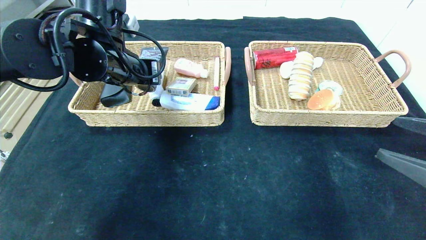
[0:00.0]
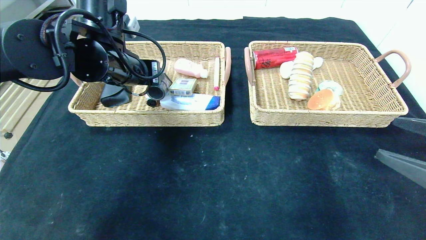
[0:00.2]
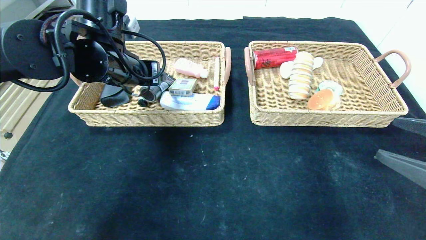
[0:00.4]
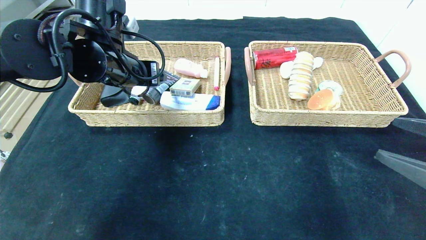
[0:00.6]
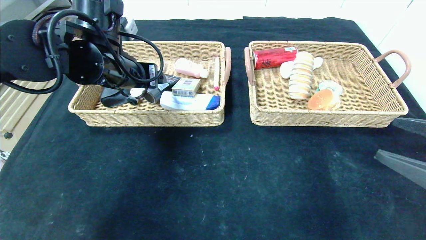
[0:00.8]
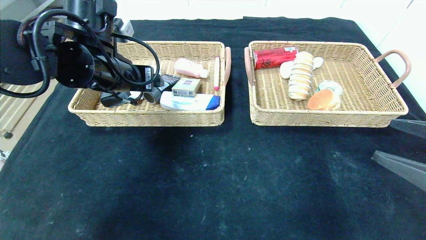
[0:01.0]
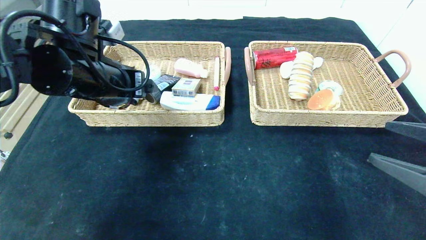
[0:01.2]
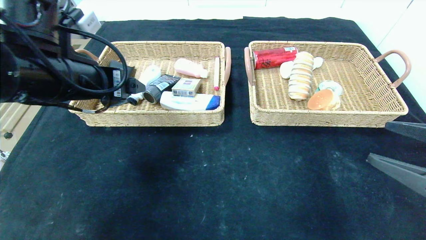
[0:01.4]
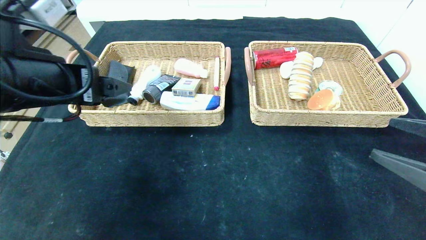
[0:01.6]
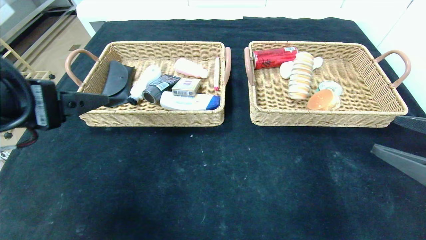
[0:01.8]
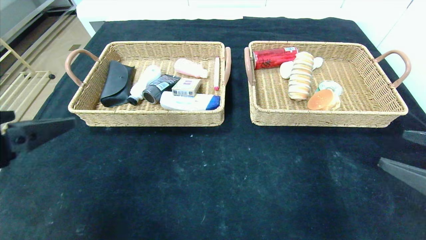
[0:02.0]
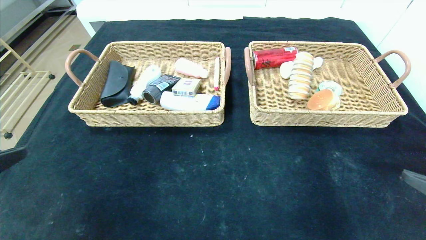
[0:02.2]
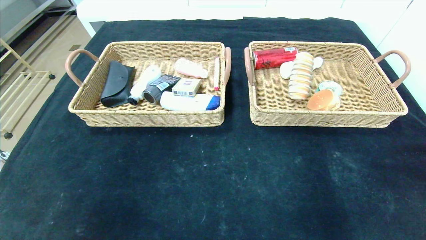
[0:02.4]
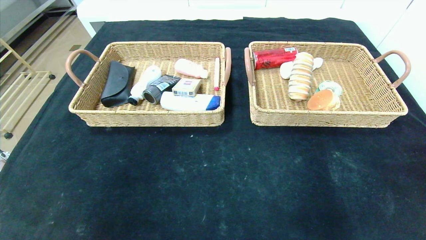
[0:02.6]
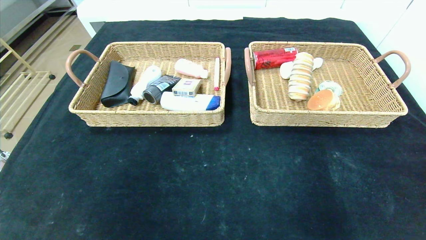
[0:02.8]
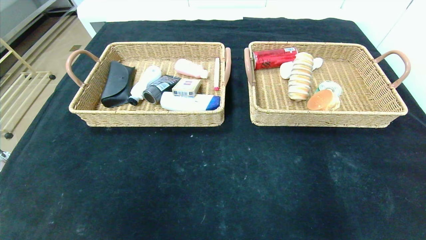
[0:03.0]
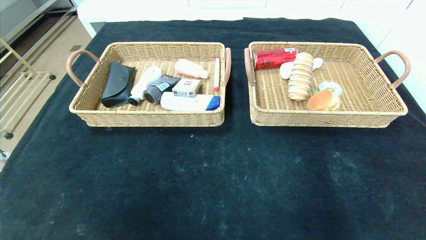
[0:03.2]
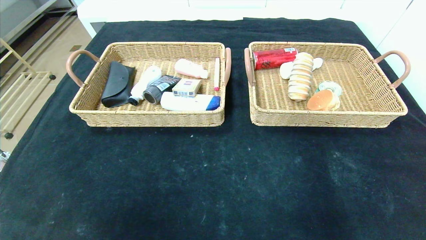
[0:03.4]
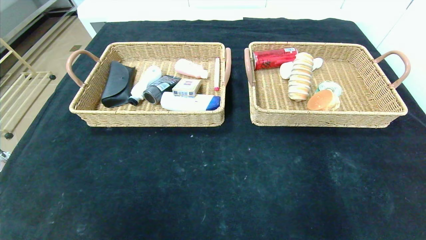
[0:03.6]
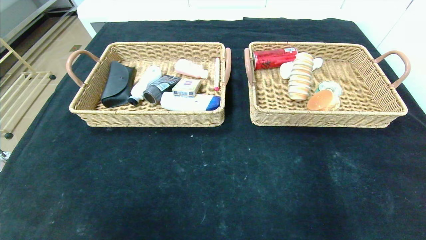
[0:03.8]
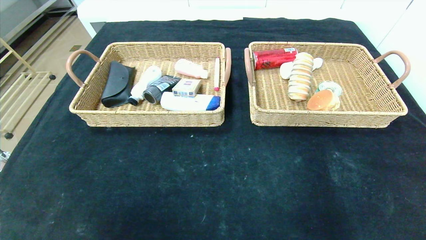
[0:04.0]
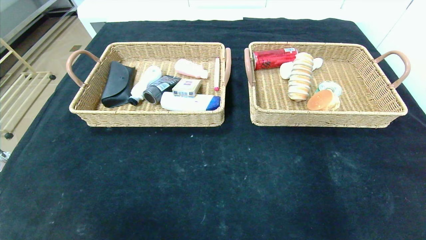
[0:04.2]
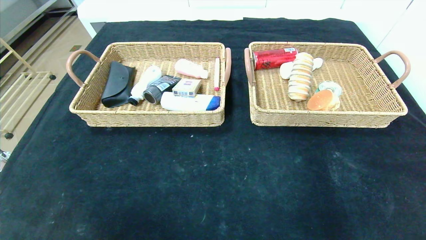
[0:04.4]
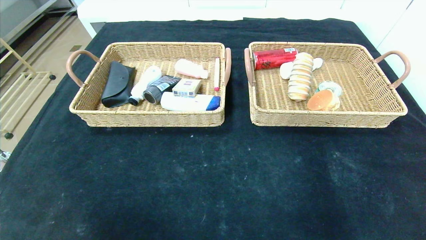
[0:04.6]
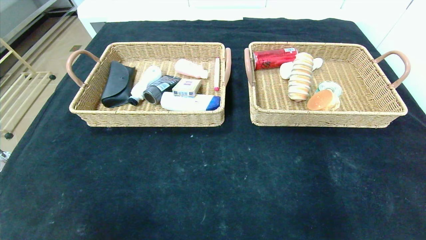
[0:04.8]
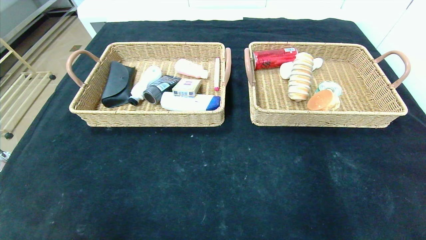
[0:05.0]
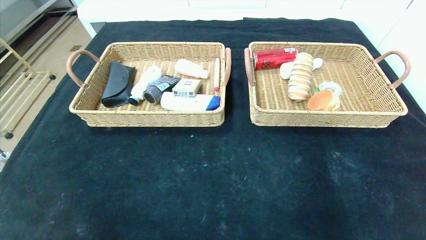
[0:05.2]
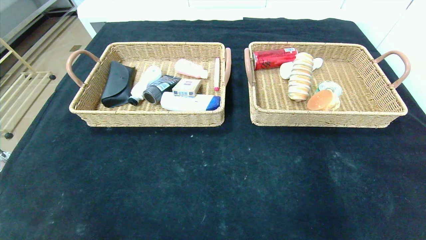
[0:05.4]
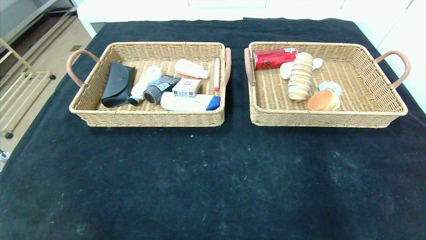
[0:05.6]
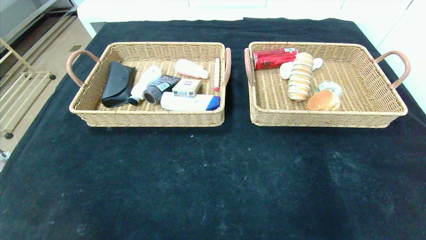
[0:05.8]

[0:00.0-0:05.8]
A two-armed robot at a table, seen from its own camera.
0:00.0 to 0:01.4: The left gripper shifts roughly 10 cm backward, and opens its fingers.
0:01.4 to 0:02.8: The right gripper goes some 15 cm backward. Meanwhile the left gripper moves backward, some 30 cm.
0:02.8 to 0:04.4: The left gripper goes about 10 cm downward and backward.
